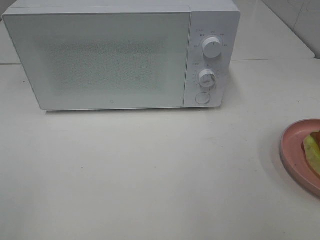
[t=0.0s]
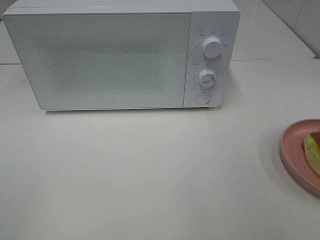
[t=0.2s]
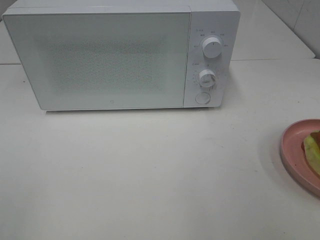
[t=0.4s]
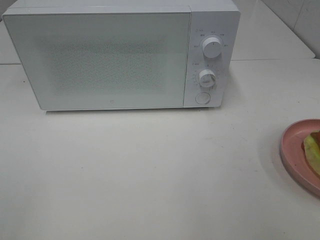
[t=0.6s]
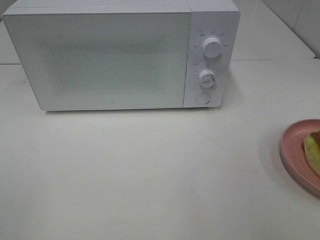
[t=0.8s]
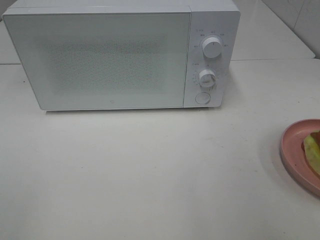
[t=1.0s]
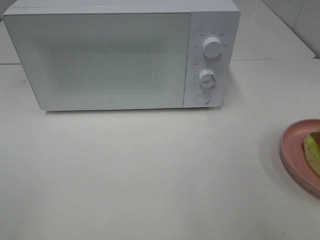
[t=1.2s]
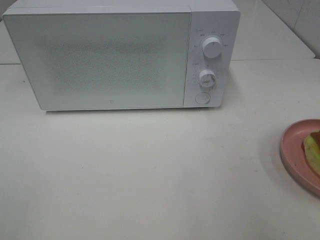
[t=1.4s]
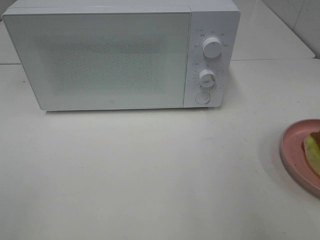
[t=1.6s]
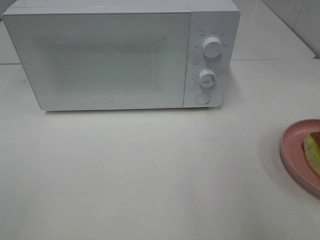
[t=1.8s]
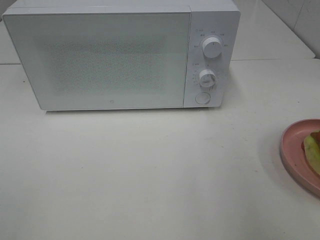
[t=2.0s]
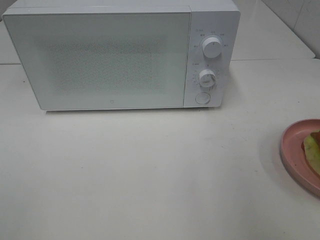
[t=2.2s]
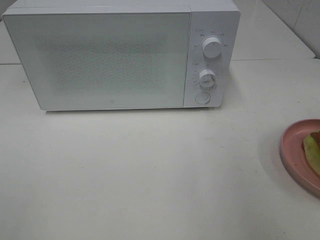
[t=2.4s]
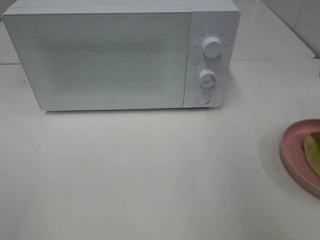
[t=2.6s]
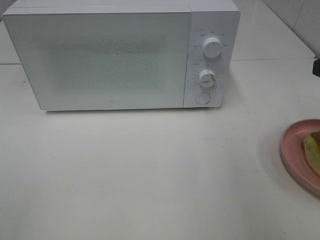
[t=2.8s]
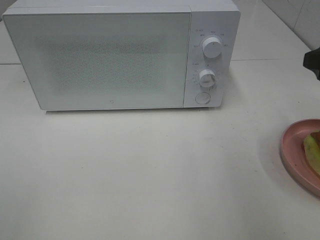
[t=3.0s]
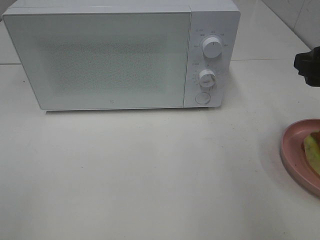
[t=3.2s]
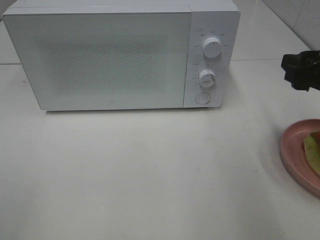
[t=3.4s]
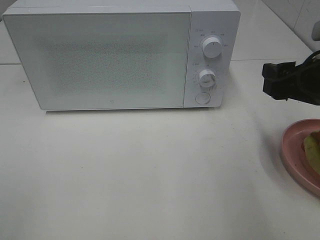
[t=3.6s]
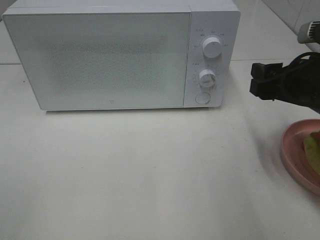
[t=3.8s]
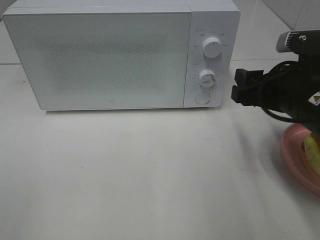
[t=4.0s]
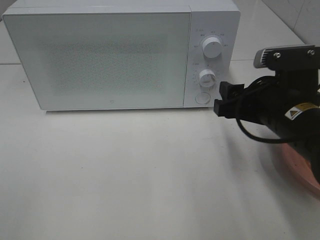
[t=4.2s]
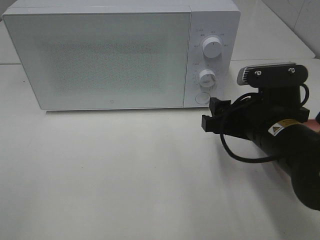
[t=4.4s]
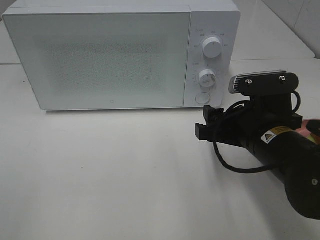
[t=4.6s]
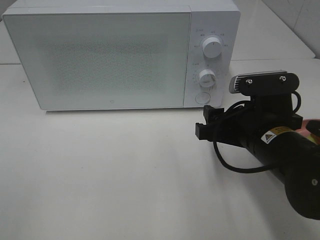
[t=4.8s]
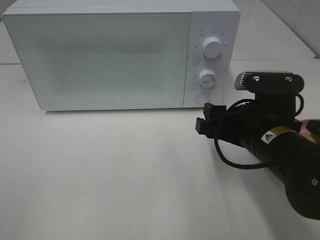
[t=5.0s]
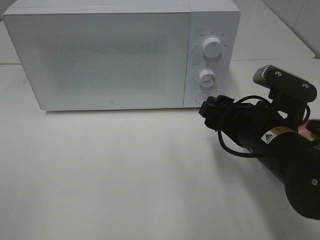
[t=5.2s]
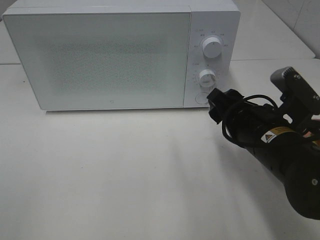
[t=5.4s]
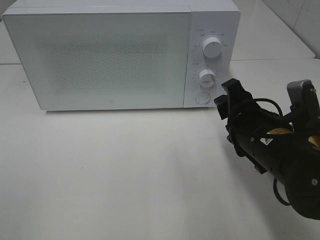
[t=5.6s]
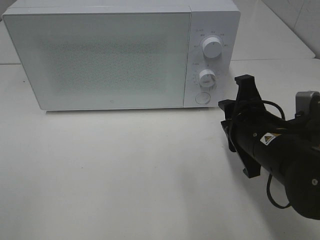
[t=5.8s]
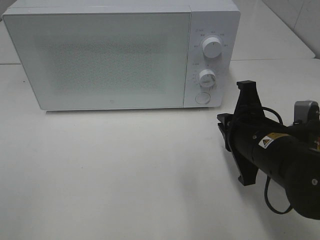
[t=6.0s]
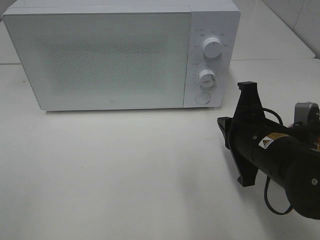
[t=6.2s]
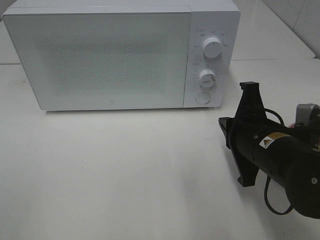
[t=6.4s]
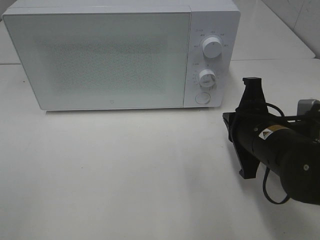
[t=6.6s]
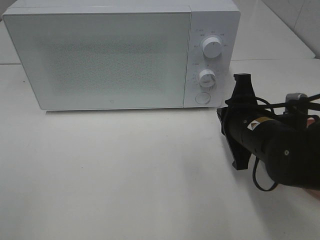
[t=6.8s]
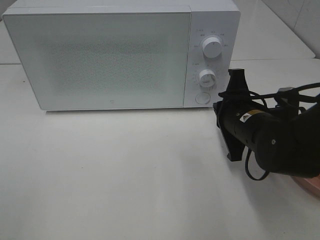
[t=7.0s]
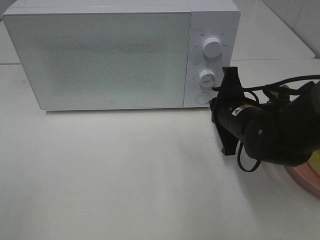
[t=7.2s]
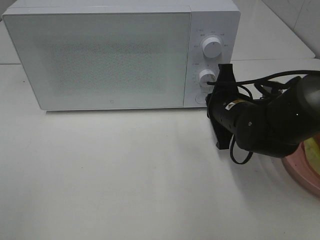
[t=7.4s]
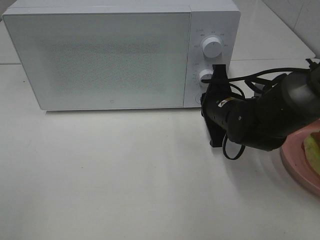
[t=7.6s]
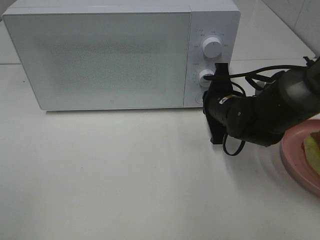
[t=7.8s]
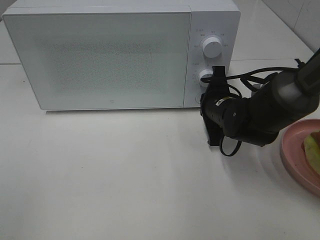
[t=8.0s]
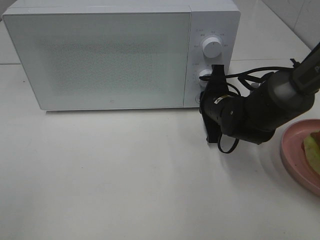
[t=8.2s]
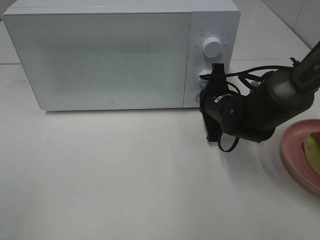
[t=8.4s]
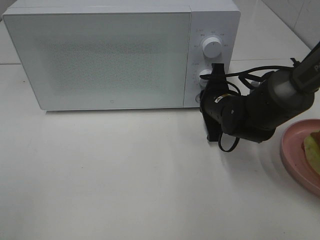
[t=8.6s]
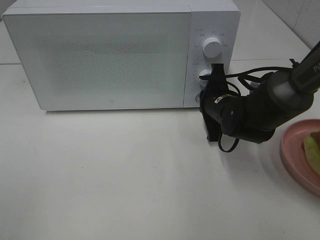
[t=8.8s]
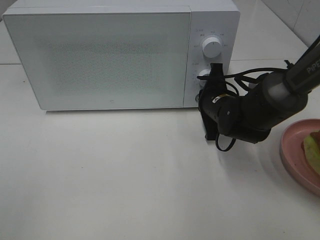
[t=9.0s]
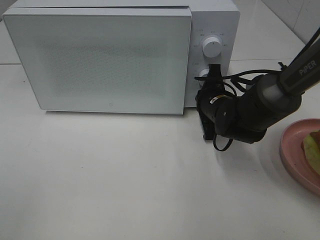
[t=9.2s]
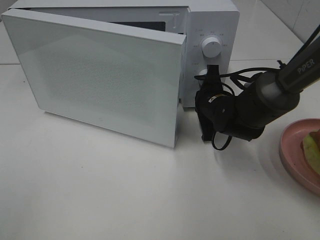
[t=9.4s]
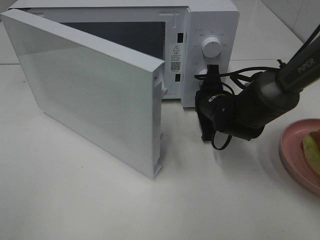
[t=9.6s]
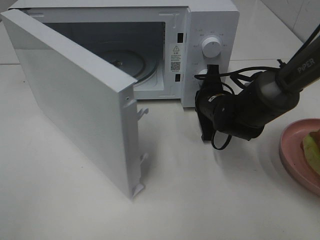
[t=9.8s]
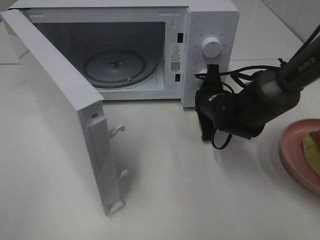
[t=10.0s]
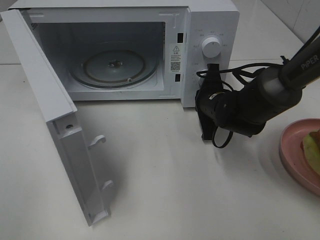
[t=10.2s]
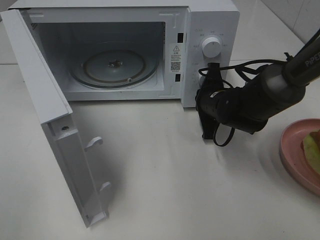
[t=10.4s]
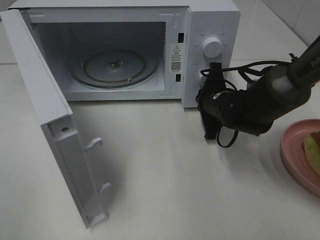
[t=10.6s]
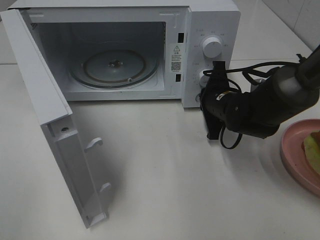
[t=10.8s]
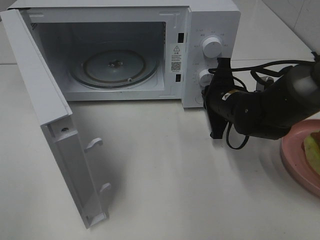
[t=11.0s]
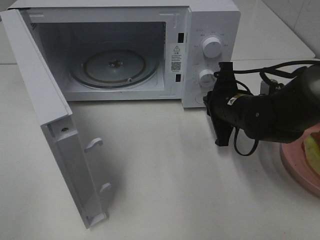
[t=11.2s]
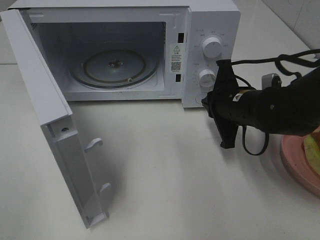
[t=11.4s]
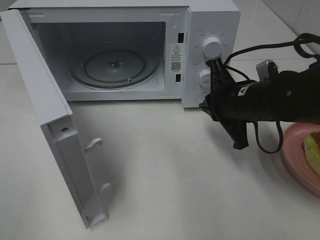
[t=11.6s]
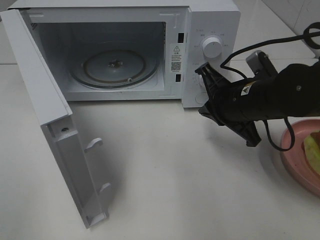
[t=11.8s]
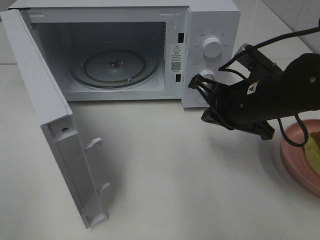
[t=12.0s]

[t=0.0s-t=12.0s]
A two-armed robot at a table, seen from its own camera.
Task of the whole recording: Heat Sandwich.
Step, t=0.0s to t=11.0s: Right hand: press the switch.
t=3.0s to t=4.4s: The right gripper heads to the left and downward, covering about 15 cm.
t=4.4s to t=6.0s: The right gripper closes.
t=6.0s to t=7.6s: The right gripper is displaced forward by some 10 cm.
t=7.6s to t=9.0s: The grippers make only small movements.
t=10.4s to t=12.0s: The right gripper shifts some 15 cm backward and upward.

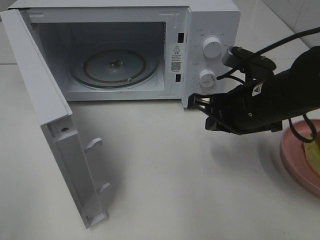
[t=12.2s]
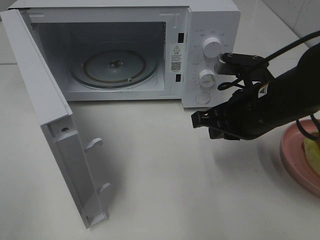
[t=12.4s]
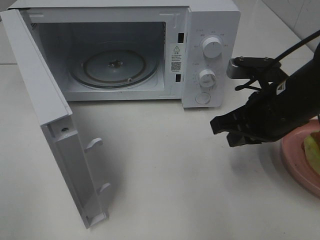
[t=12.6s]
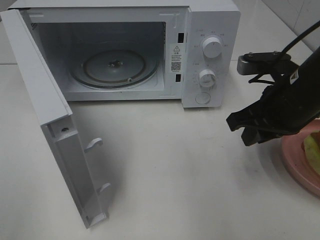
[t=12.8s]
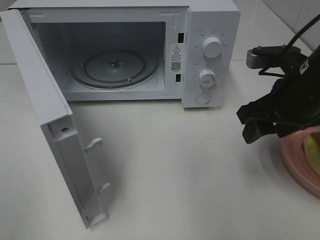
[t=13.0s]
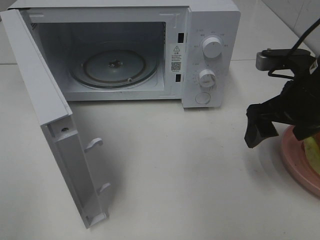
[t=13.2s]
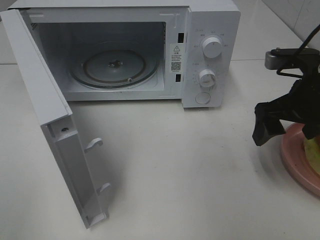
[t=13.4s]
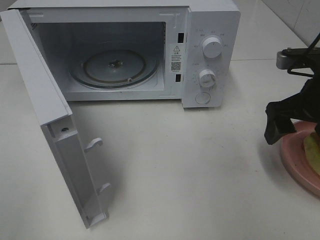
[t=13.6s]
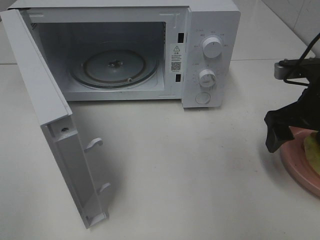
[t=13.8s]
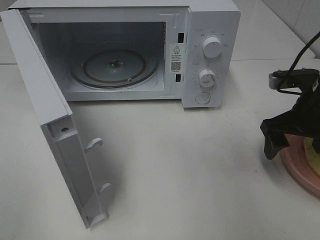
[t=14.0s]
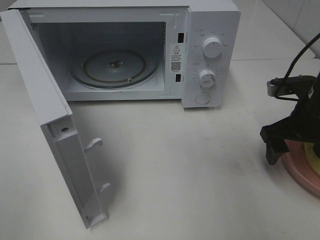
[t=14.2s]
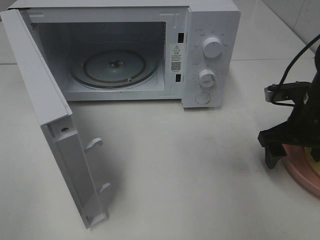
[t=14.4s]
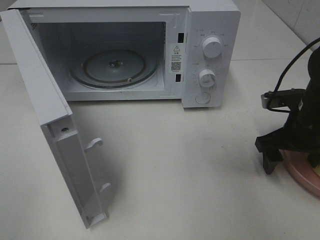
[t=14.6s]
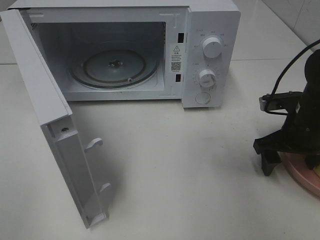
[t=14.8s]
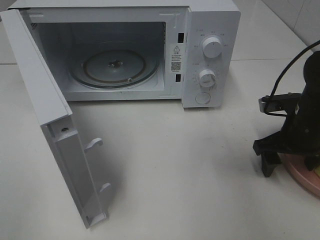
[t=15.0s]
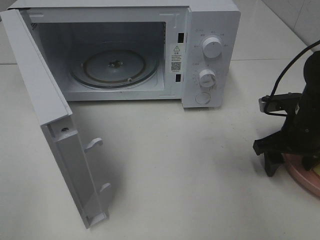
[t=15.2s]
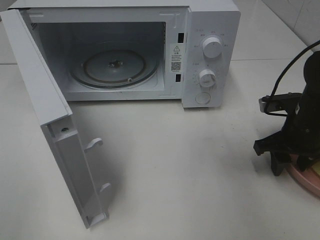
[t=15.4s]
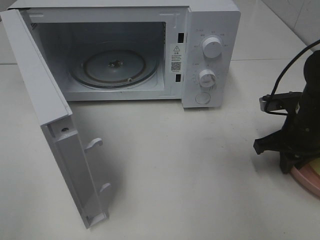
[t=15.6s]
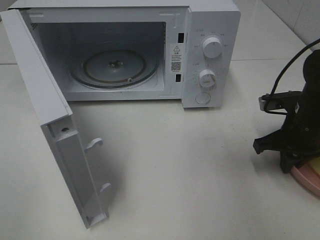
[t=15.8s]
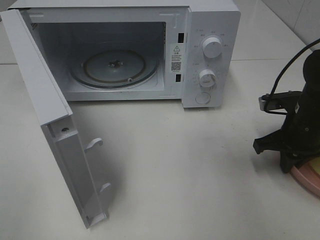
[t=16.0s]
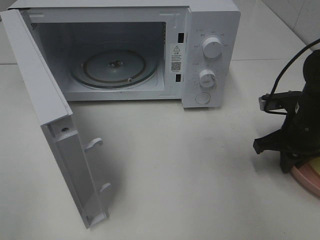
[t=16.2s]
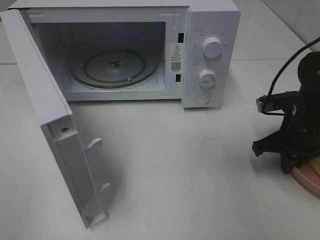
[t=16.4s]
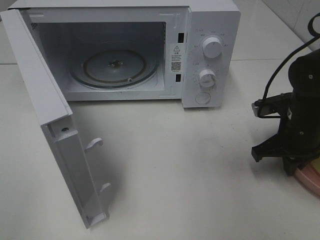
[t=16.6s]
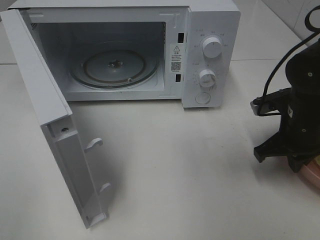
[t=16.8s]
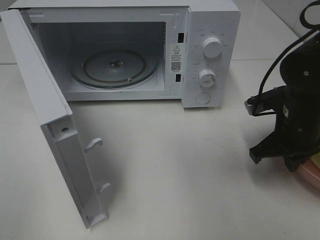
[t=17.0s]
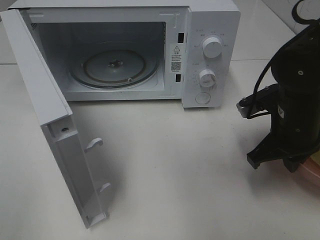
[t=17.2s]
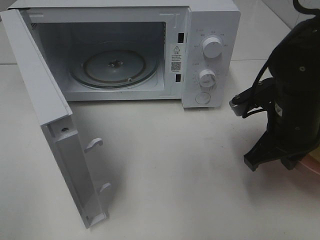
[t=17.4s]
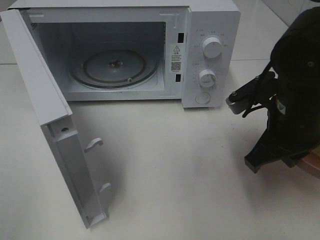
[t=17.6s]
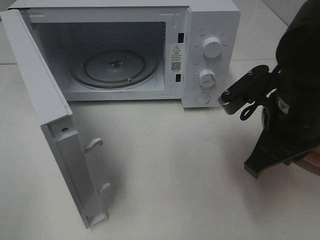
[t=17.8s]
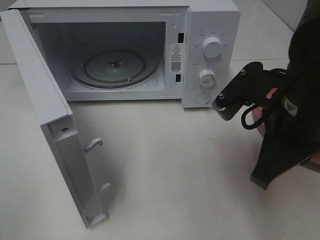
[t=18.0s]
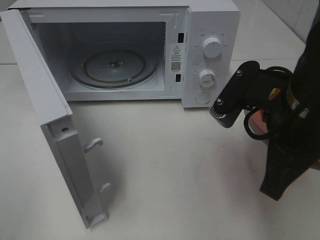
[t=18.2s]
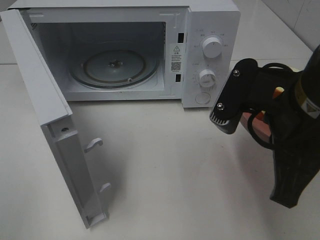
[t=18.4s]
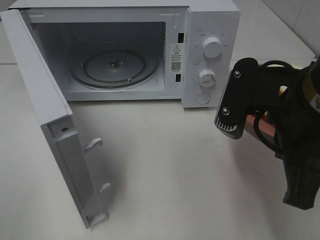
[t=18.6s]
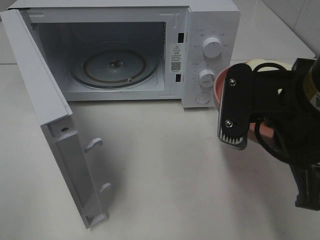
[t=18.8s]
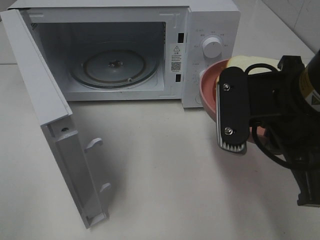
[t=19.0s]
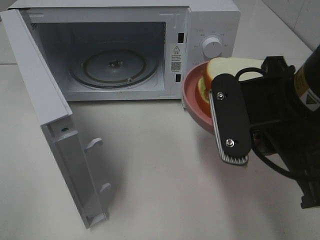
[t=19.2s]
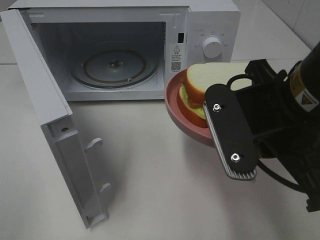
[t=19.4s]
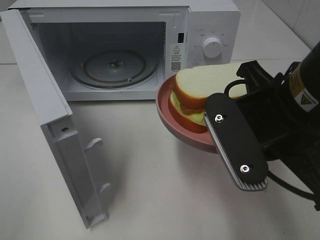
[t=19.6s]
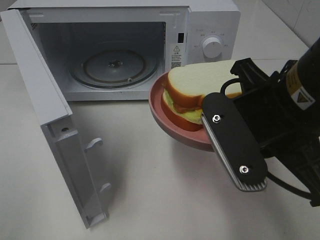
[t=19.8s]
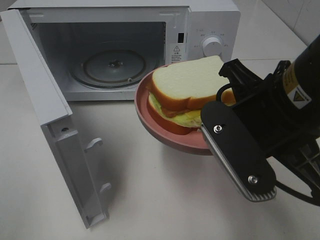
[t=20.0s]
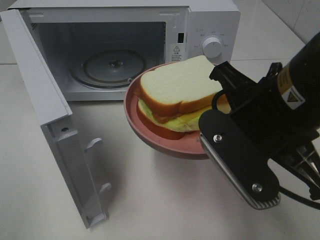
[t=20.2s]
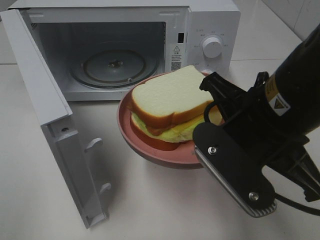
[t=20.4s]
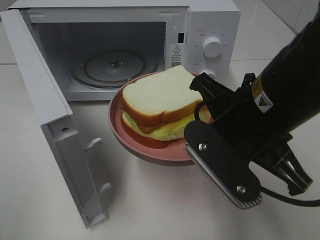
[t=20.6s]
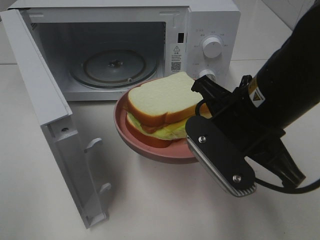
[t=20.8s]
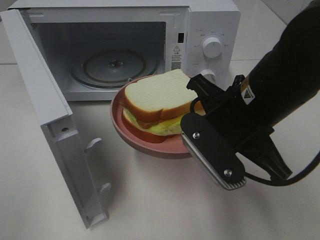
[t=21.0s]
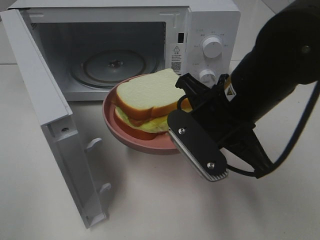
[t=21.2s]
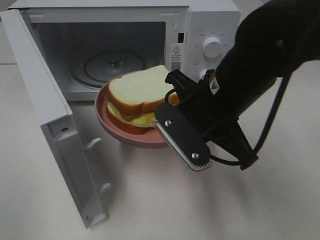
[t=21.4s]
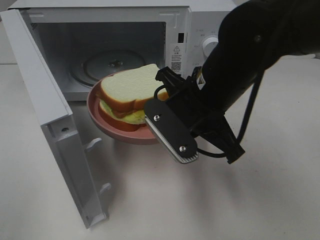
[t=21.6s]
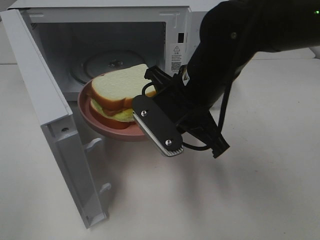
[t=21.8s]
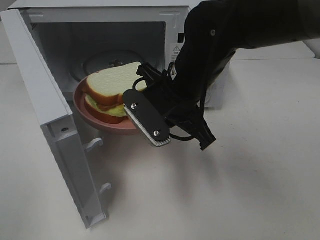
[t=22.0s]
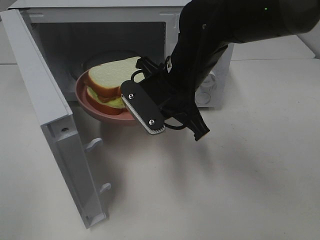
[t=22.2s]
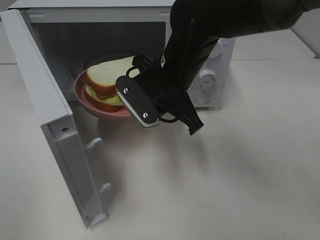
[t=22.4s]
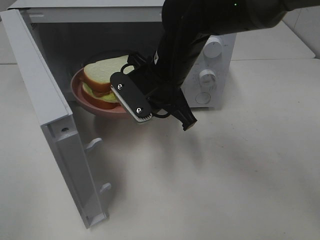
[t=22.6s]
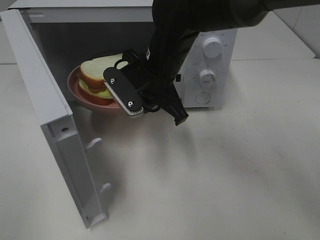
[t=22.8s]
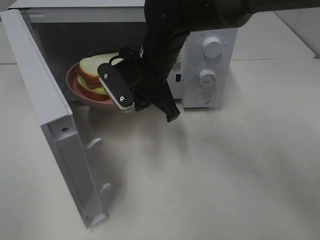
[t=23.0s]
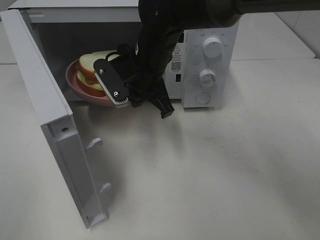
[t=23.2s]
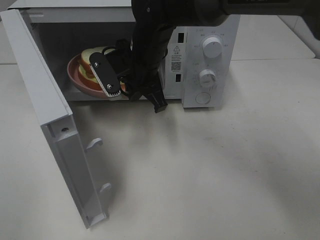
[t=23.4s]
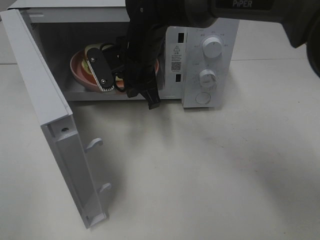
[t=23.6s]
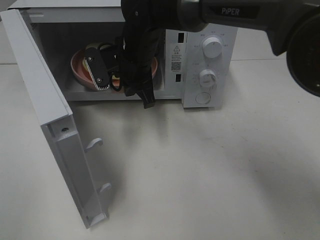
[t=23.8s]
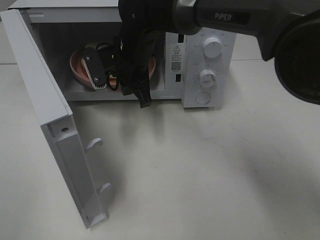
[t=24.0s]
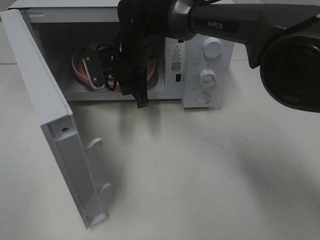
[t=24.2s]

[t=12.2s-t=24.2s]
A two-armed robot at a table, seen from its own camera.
Task of the whole recording: Heat Sandwich.
Step, t=12.2s to t=16.0s: Right hand: grab the plate with the sandwich.
t=12.2s to t=13.8s: The right gripper moves to the right, roughly 10 cm, and opens its fingers.
t=13.8s to t=15.2s: The right gripper travels downward by approximately 5 cm.
t=15.2s to t=16.6s: The right gripper closes.
t=16.6s to t=18.2s: The right gripper is displaced upward, backward and to the left by approximately 20 cm.
t=19.8s to t=21.2s: The right gripper goes about 5 cm forward.
t=21.2s to t=22.6s: The right gripper moves forward and to the left, about 15 cm.
t=22.6s to t=24.2s: The right gripper is displaced forward and to the left by approximately 10 cm.
